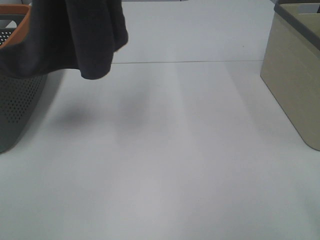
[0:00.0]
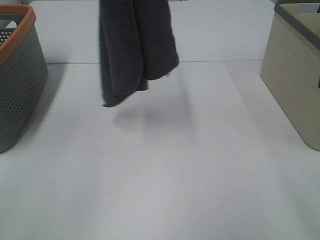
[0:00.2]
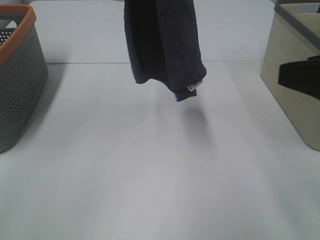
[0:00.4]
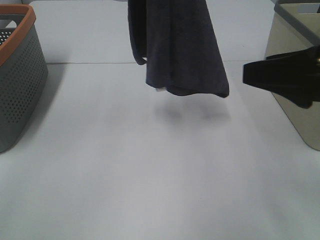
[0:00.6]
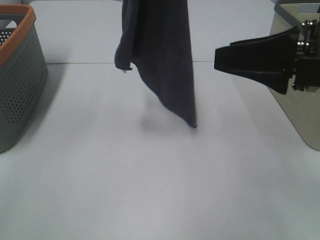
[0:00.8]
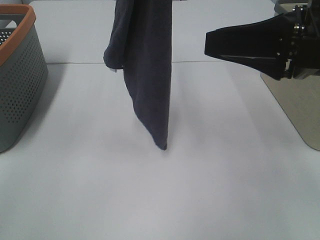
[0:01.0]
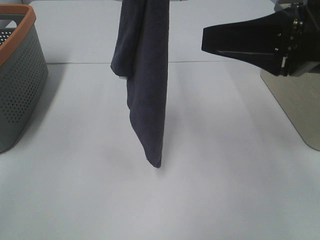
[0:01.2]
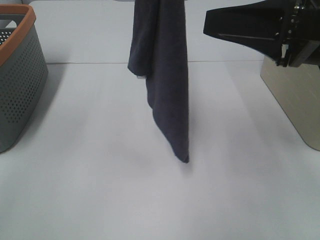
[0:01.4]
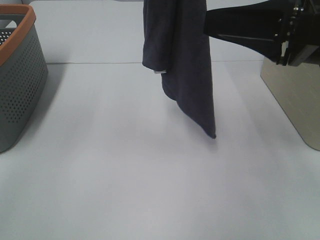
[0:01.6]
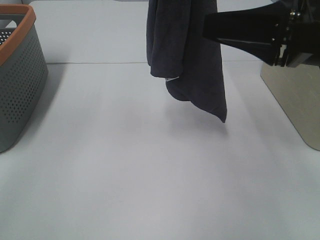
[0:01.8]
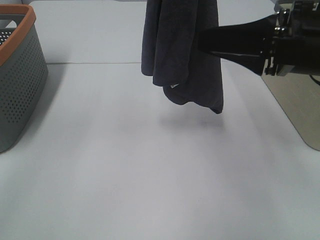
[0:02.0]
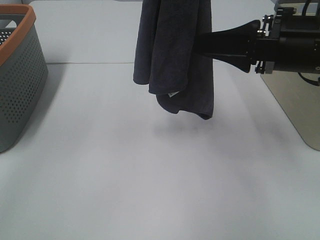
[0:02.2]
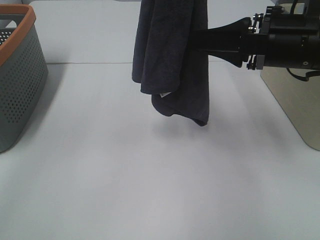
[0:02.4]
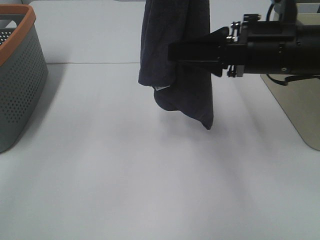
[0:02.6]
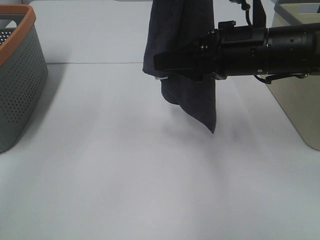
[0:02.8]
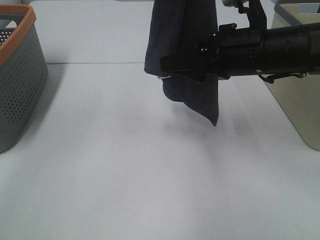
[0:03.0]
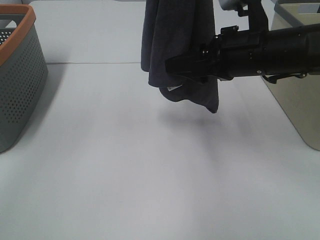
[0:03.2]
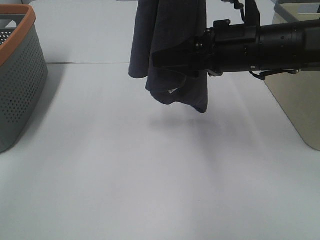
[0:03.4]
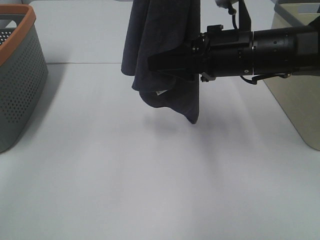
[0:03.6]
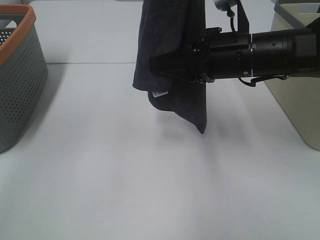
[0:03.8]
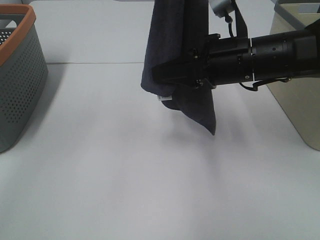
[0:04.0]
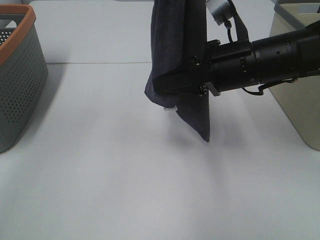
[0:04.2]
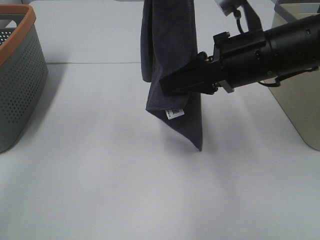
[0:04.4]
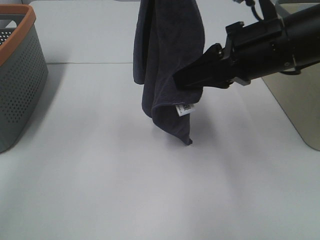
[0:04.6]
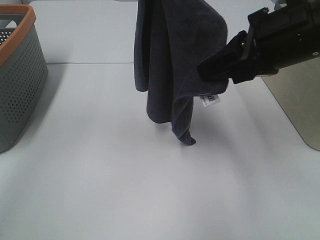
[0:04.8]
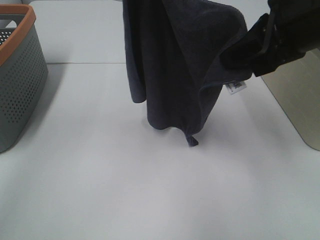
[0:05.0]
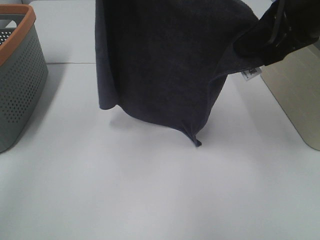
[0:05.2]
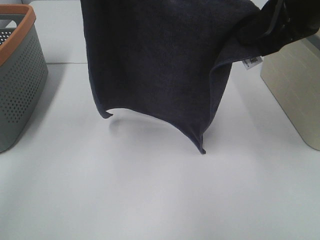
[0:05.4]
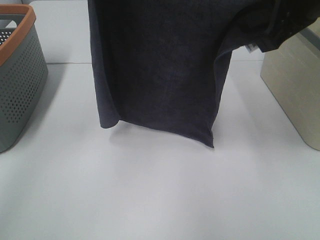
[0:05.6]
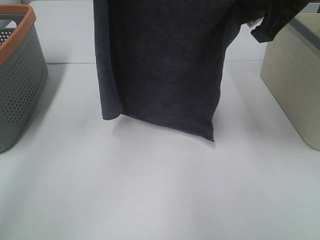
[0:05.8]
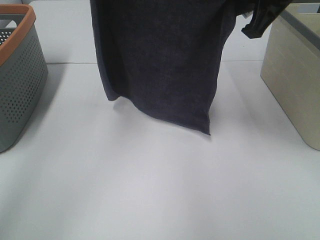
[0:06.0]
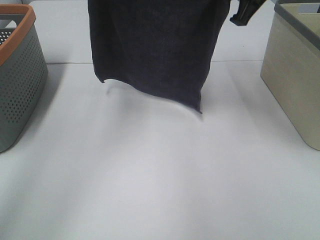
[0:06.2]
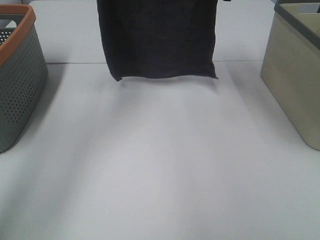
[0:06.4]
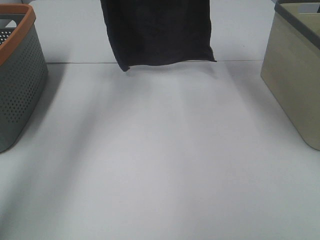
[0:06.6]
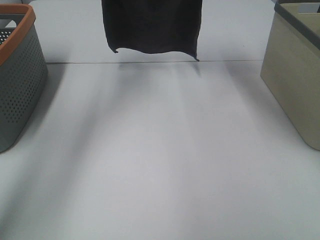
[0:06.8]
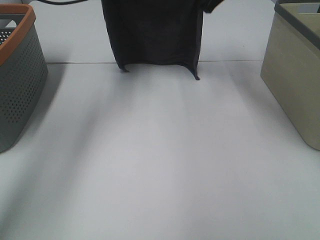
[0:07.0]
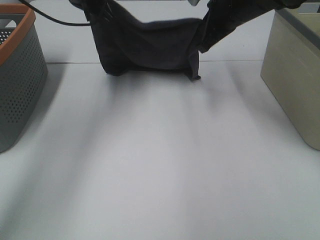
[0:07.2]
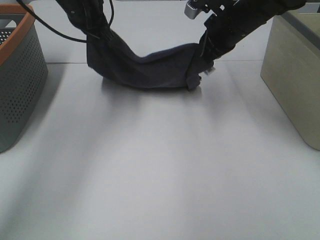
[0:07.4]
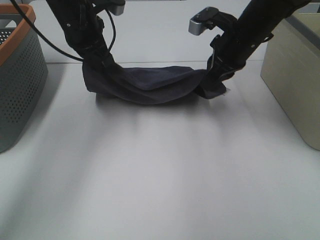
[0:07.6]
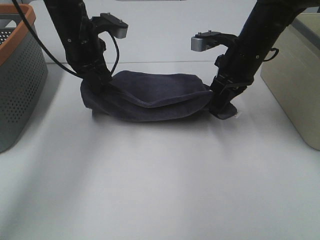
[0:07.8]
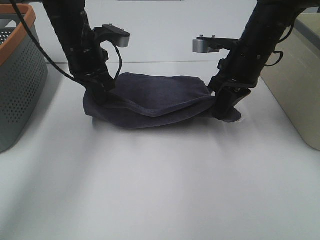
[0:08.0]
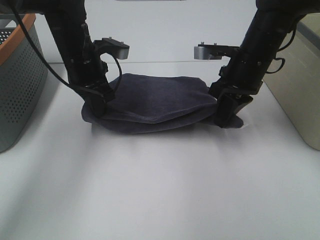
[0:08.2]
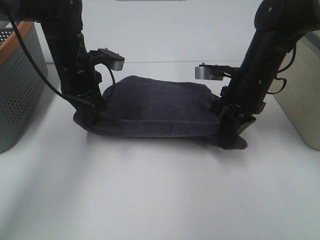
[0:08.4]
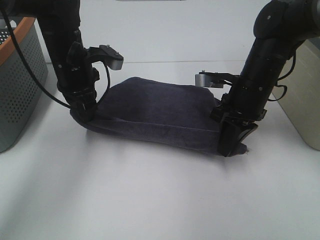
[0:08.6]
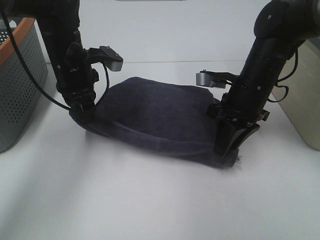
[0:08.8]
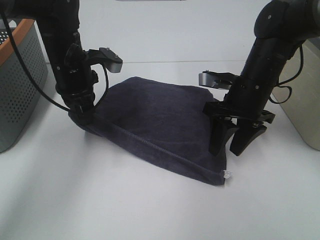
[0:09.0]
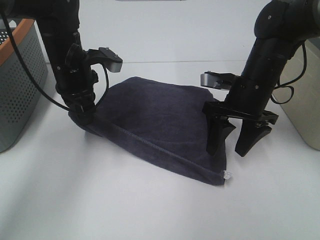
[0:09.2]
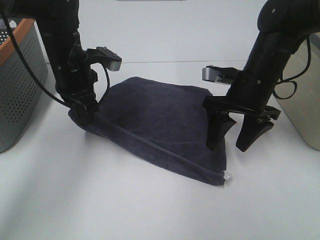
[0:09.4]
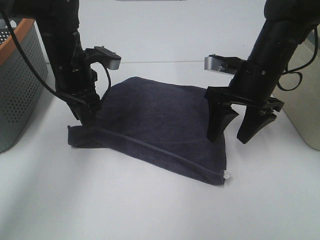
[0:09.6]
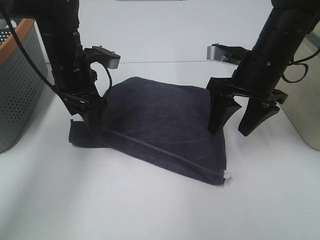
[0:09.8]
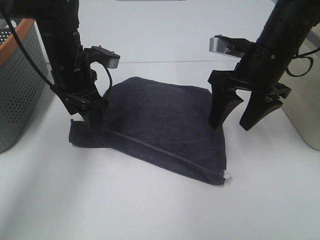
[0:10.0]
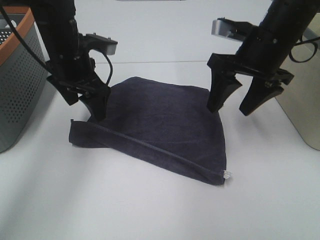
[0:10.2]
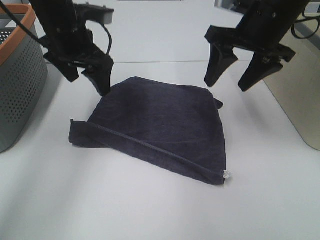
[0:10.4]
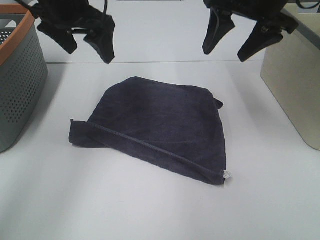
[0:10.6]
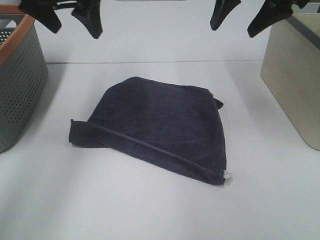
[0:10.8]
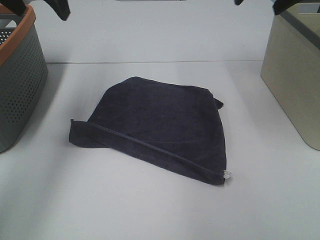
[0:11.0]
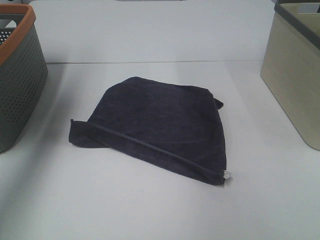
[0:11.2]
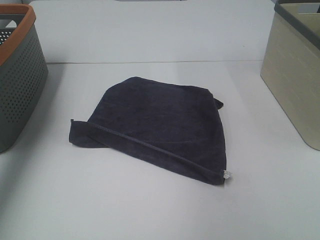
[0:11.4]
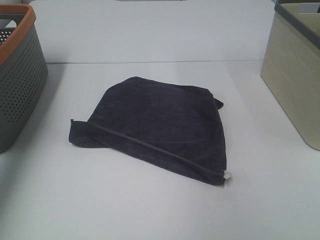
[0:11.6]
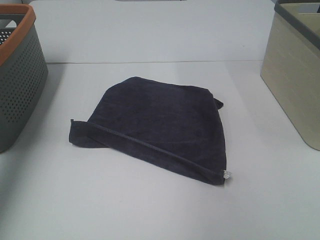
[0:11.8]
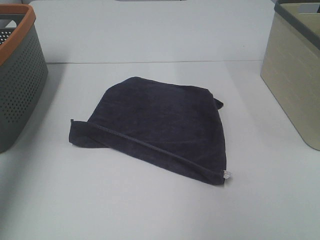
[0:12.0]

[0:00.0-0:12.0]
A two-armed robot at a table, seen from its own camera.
Task of the whole recording: Remove the towel and place it.
Step, 0:00.0 to 0:03.0: Right hand: grab a corner of the grey towel and straighten it.
Step, 0:03.2 to 0:05.0: Right hand: spread the grey towel flat on the table.
Step, 0:03.2 to 0:05.6: Left hand: spread the grey towel flat on the table.
0:00.0 to 0:01.6: The left gripper shifts some 10 cm to the right; the right gripper moves forward and to the left, about 20 cm.
0:01.6 to 0:03.0: The right gripper shifts some 10 cm forward and downward.
0:03.0 to 0:04.4: The right gripper closes.
0:04.4 to 0:06.0: The left gripper travels forward, downward and to the left by some 10 cm; the right gripper goes some 10 cm upward and forward.
0:06.0 to 0:07.6: The left gripper shifts about 15 cm downward. Meanwhile the right gripper is displaced downward and forward by some 15 cm.
0:07.6 to 0:09.0: The left gripper is displaced downward by about 5 cm, while the right gripper heads backward and downward, covering some 10 cm, and opens up.
0:09.0 to 0:10.4: The left gripper travels upward by about 10 cm, and opens; the right gripper is displaced upward by approximately 15 cm.
0:10.4 to 0:12.0: The right gripper travels backward, to the right and upward by some 25 cm, while the left gripper is displaced to the left, upward and backward by some 30 cm.

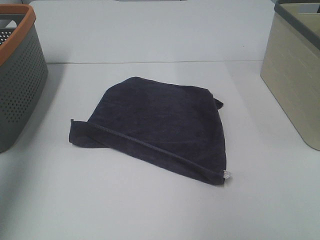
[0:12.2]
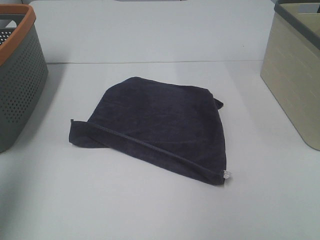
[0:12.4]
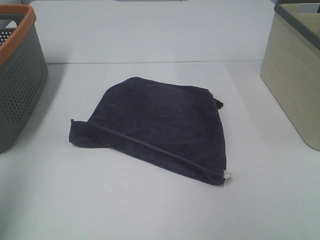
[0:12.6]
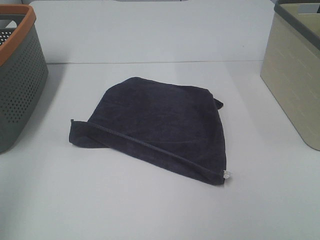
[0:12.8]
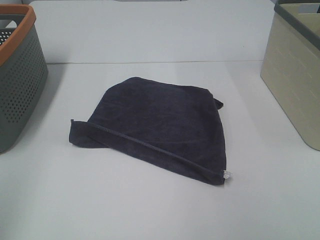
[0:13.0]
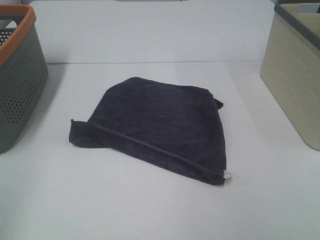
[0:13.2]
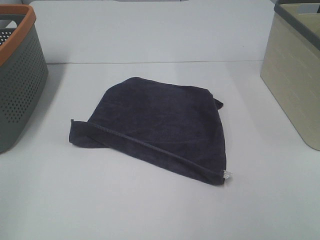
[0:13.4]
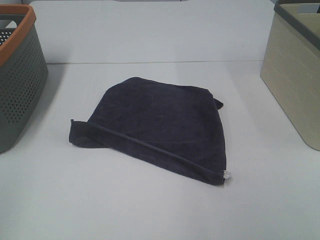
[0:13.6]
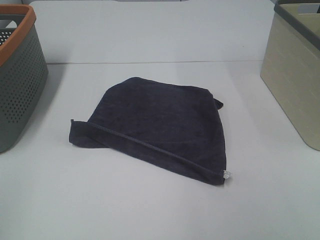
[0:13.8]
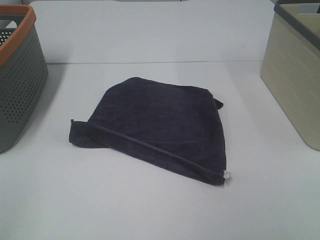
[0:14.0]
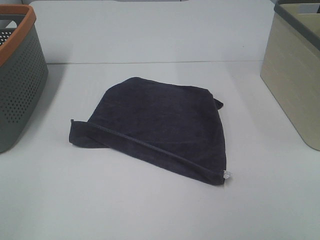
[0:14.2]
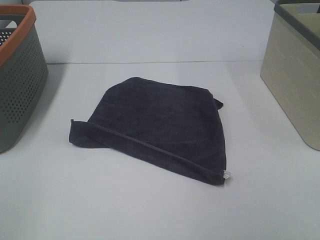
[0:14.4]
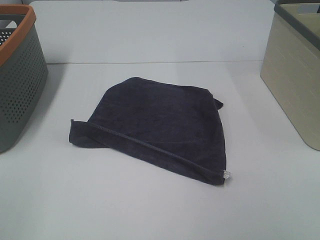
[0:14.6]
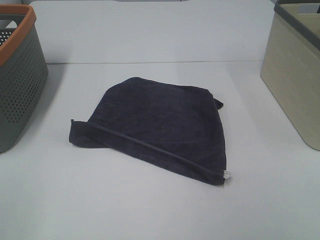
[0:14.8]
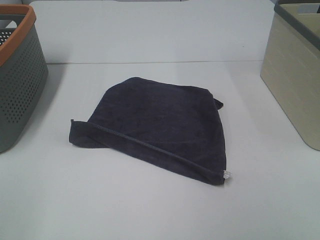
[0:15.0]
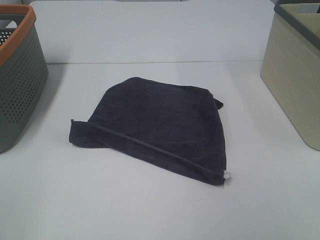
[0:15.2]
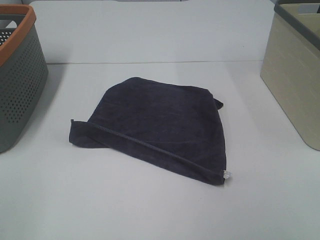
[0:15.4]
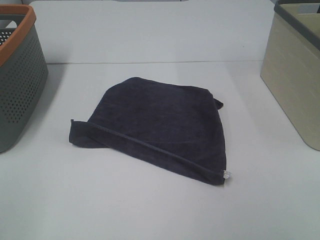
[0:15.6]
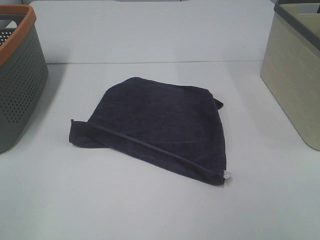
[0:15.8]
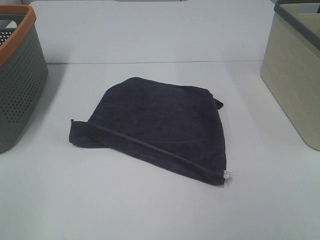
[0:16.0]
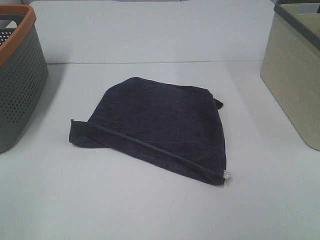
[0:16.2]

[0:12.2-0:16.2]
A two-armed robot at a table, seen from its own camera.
Task of the whole recording: Remove the towel and place it.
0:12.2 to 0:13.6: The left gripper moves backward and downward, approximately 20 cm.
0:14.8 to 0:16.2: Both grippers stay about where they are.

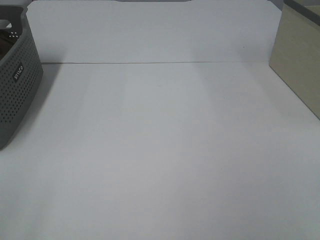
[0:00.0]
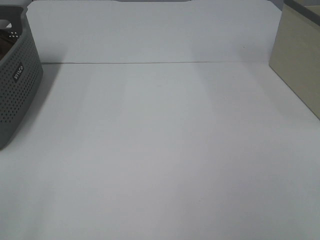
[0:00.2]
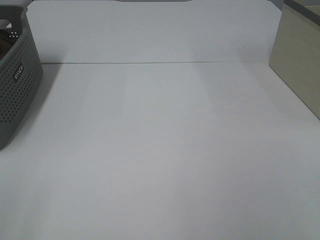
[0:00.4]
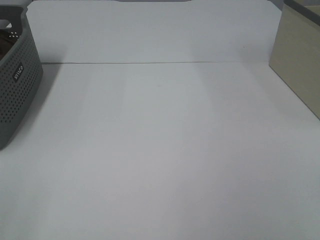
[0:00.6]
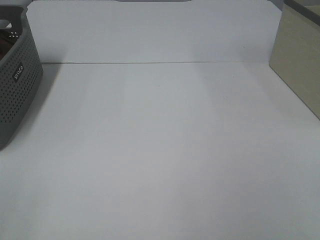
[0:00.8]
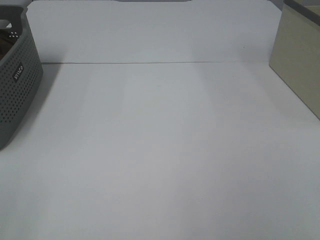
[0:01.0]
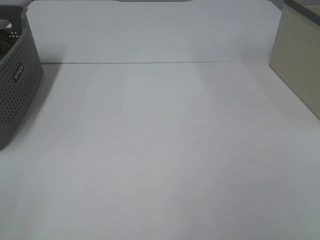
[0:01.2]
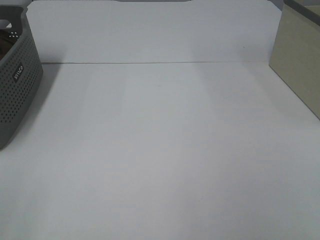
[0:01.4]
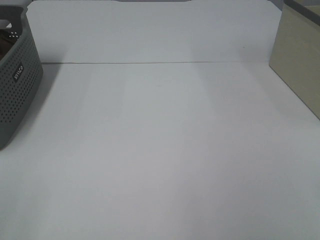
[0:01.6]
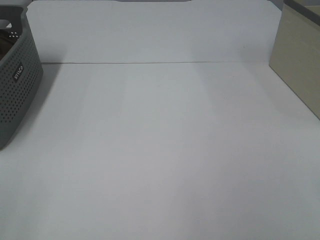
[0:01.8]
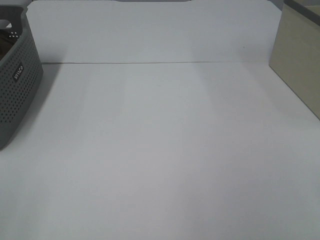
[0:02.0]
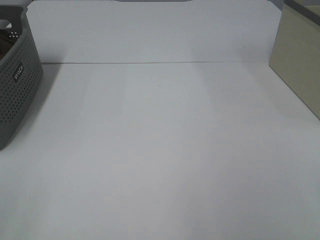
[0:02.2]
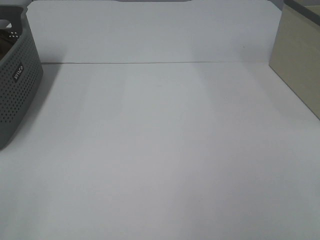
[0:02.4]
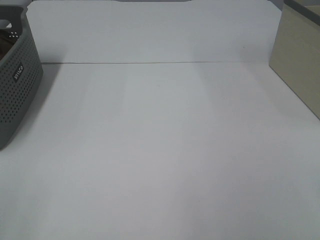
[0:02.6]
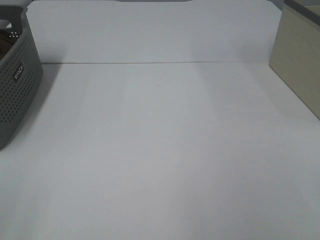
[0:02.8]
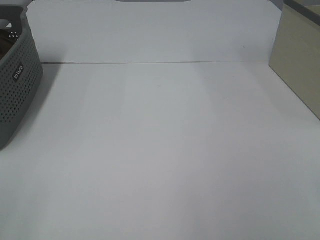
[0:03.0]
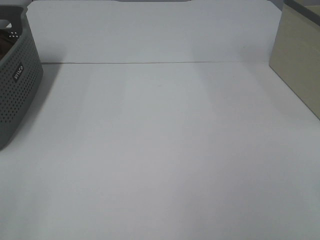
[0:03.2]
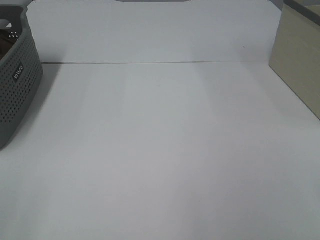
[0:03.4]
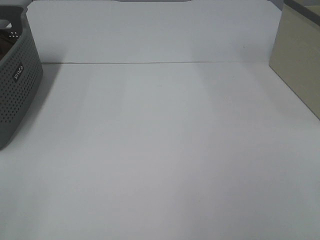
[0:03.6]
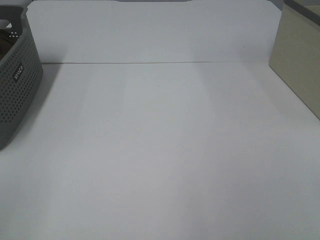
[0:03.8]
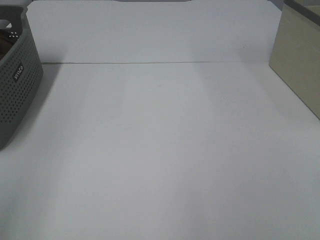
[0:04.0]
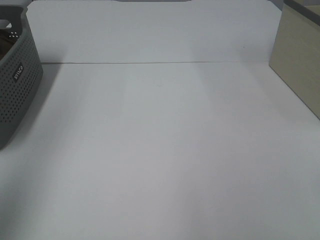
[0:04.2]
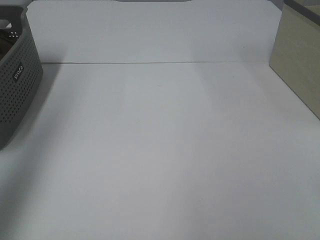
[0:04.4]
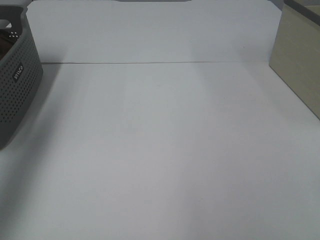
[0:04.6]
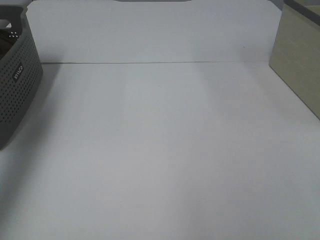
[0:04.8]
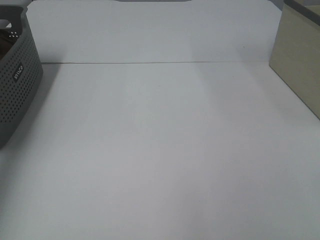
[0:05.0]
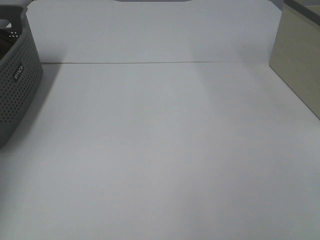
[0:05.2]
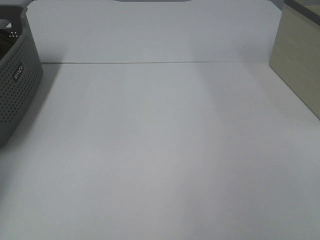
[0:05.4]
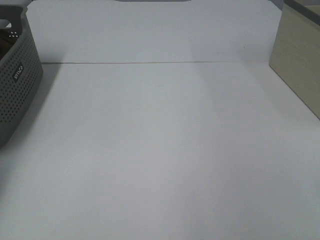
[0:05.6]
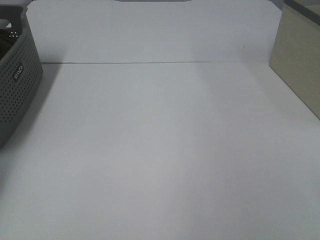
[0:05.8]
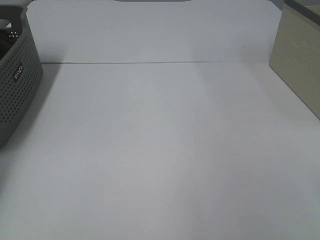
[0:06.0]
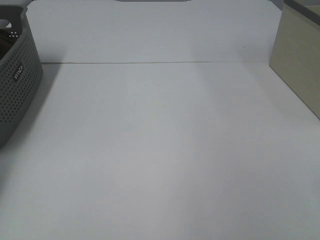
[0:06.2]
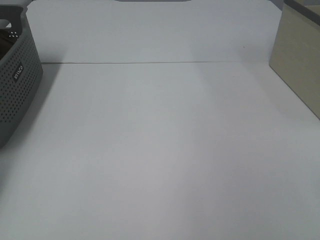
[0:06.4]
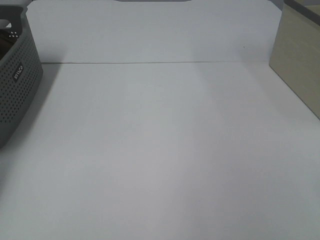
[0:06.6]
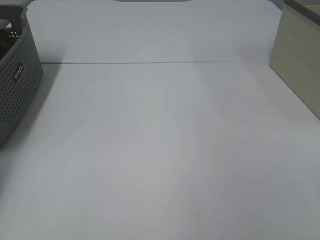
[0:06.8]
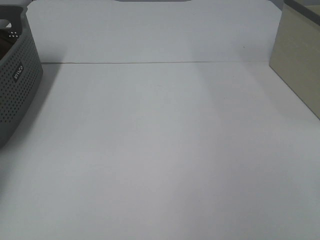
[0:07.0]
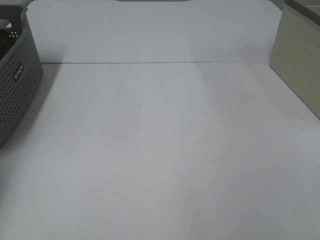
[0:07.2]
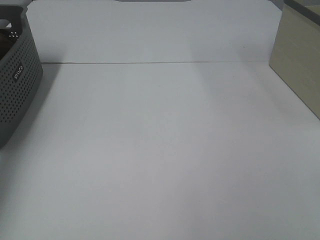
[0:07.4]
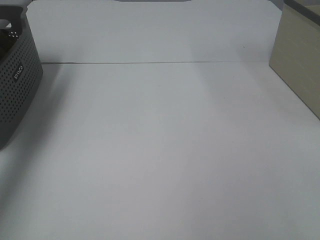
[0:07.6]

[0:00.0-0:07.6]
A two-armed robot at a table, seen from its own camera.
Task of the whole recording: Remove the towel and place it.
0:00.0 to 0:03.0: Both grippers stay about where they are.
0:03.0 to 0:04.6: The left gripper heads forward and upward, covering about 30 cm.
0:04.6 to 0:06.0: The left gripper heads downward, forward and to the left, covering roughly 30 cm.
0:06.0 to 0:07.6: The left gripper heads upward and to the right, covering roughly 20 cm, and closes its fingers.
